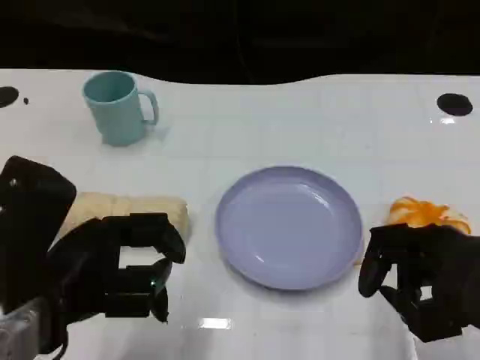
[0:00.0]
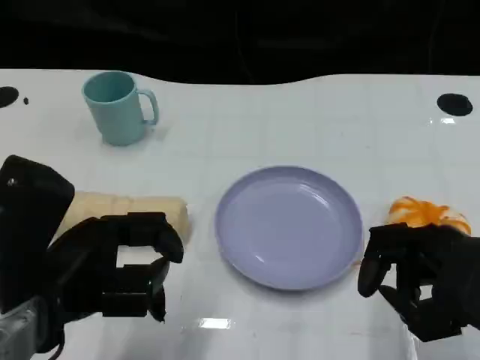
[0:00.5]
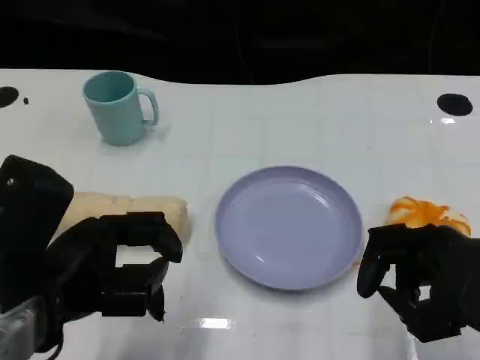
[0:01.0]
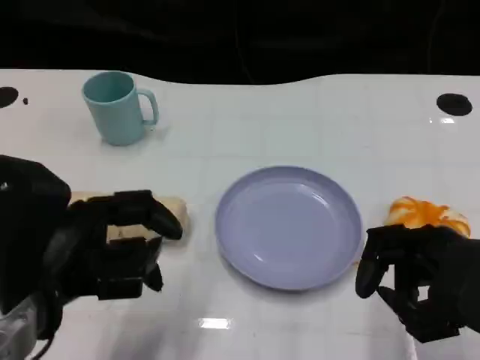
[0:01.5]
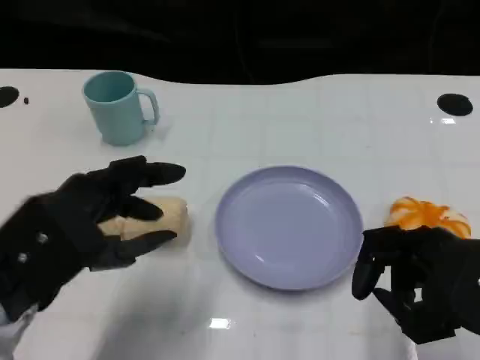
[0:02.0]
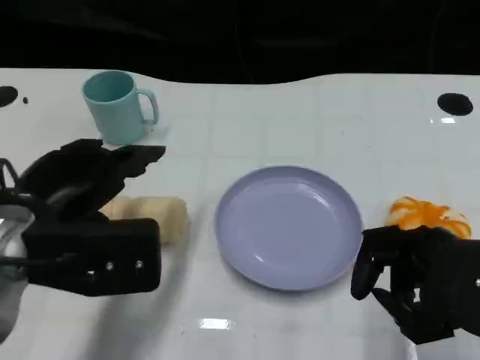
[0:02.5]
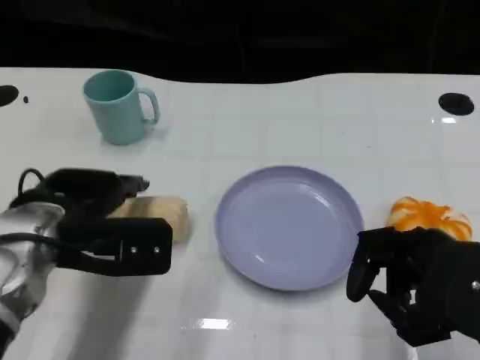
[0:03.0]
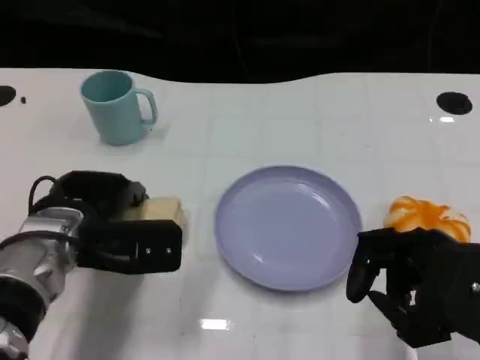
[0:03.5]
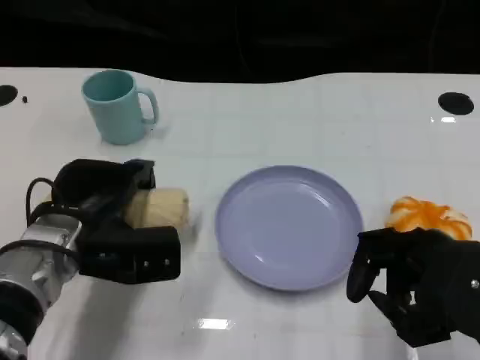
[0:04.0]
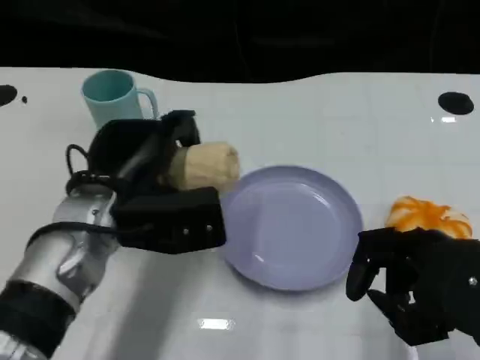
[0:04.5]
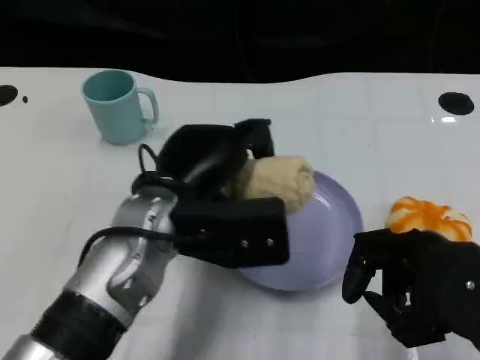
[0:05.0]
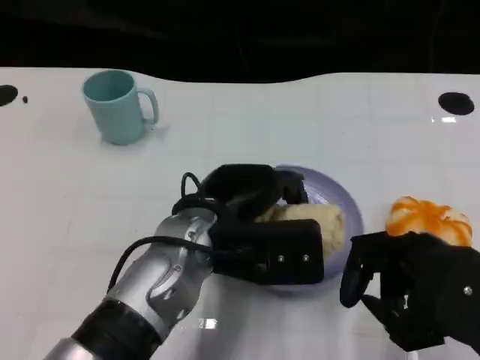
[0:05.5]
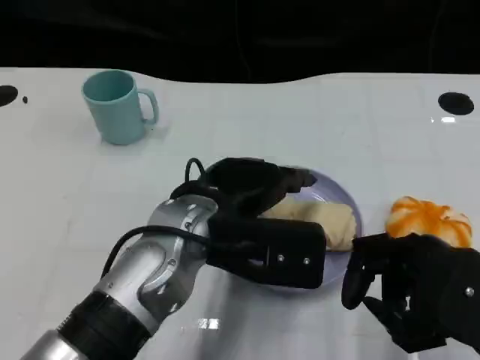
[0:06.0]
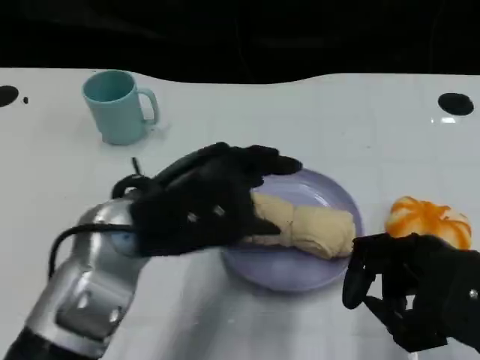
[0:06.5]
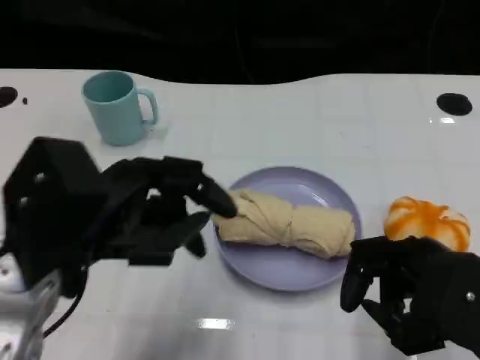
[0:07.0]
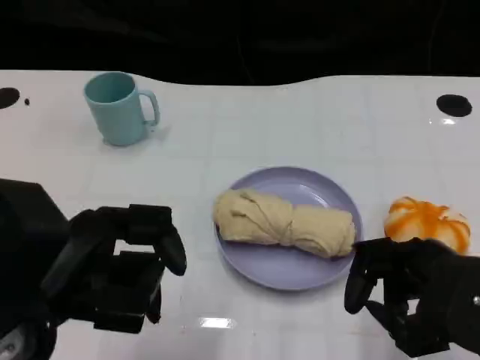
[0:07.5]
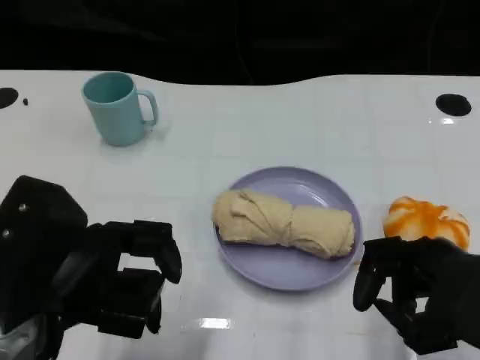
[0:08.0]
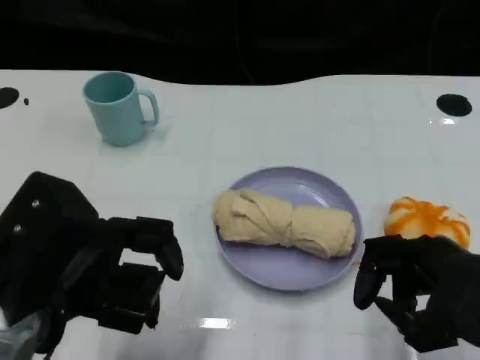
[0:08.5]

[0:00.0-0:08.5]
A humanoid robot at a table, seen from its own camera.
Task of the whole recording: Grasp the towel on the left side of the plate with the left hand and place it into the plate.
0:02.0 to 0:04.0: The left hand heads forward and downward, covering some 10 cm.
0:04.0 to 0:06.5: The left hand heads upward and to the right, covering about 10 cm.
0:06.5 to 0:08.5: The left hand travels to the left and backward by roughly 10 cm.

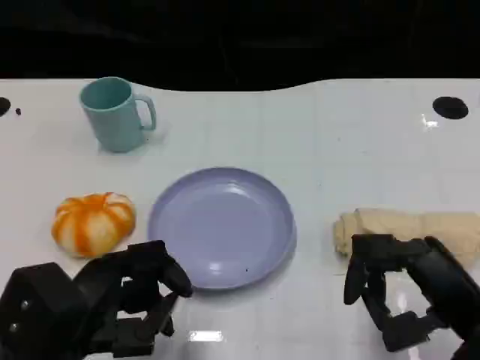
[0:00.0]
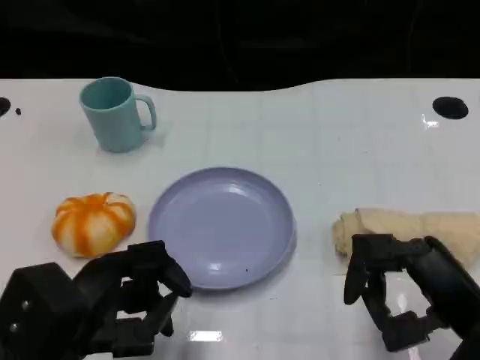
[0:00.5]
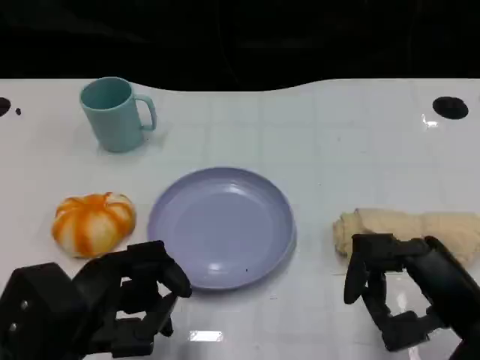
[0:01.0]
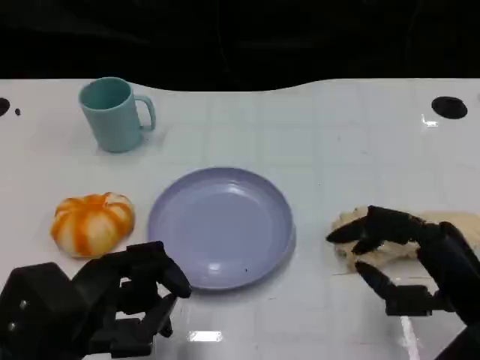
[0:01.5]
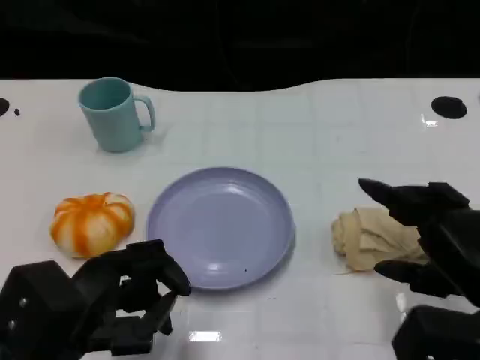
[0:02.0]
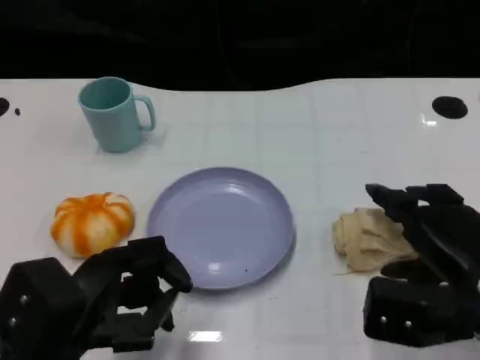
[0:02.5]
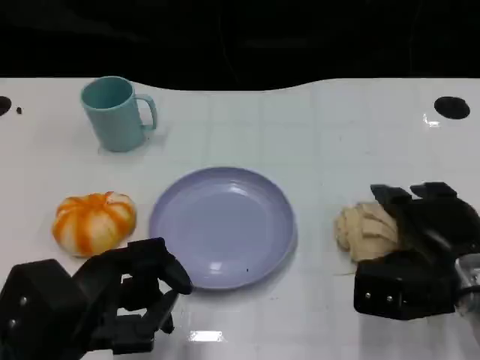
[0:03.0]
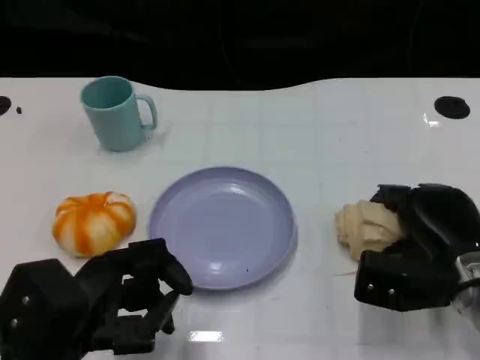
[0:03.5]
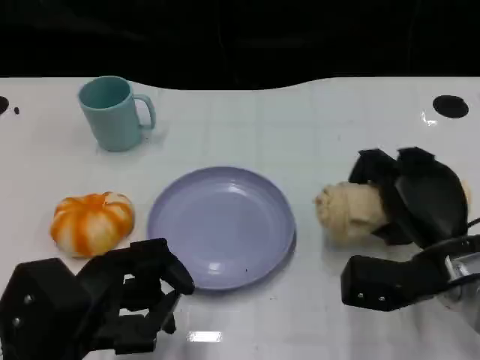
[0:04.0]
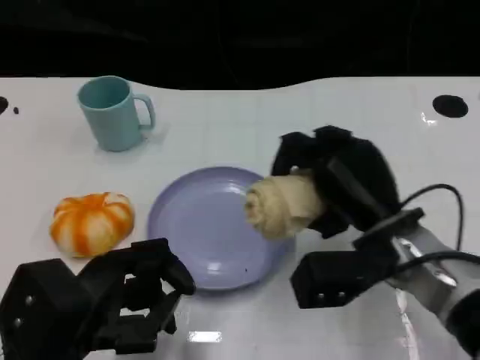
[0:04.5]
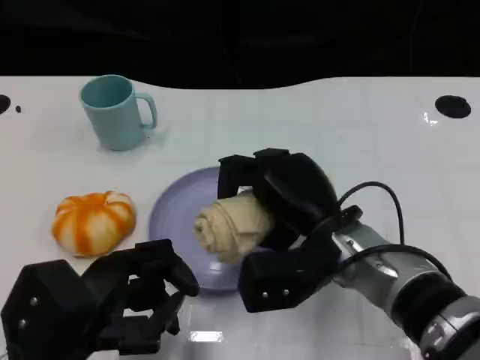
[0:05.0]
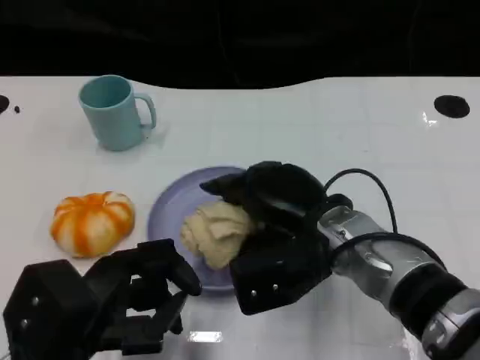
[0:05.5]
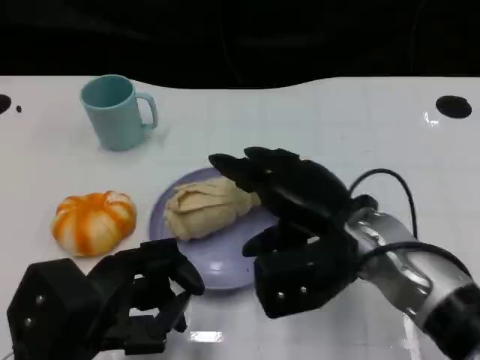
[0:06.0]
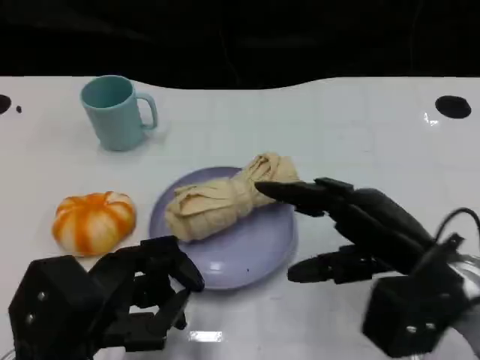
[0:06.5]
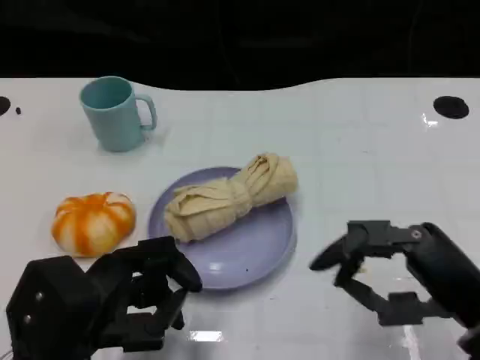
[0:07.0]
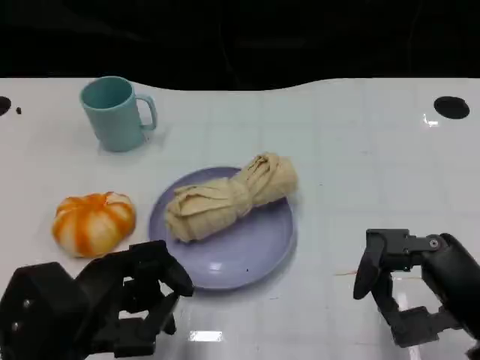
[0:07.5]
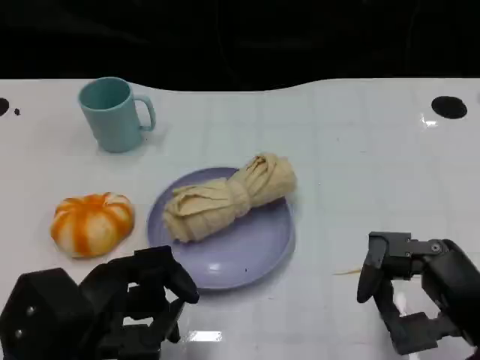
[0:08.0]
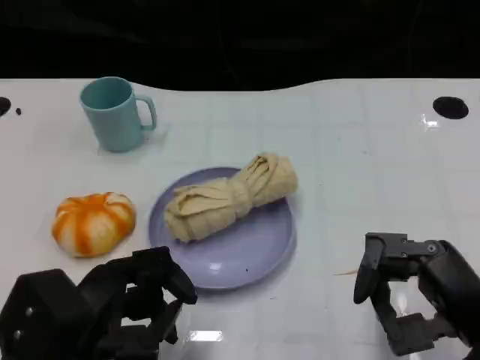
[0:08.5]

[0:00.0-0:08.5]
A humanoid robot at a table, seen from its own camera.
Task of the whole recording: Grasp the towel on the left side of the plate with the left hand and place it into the plate.
0:02.0 to 0:04.0: The right hand is displaced forward and downward by approximately 10 cm.
0:04.0 to 0:06.5: The right hand goes roughly 5 cm upward, and goes to the left and returns, some 10 cm each way.
0:06.5 to 0:08.5: The right hand moves backward, roughly 5 cm.

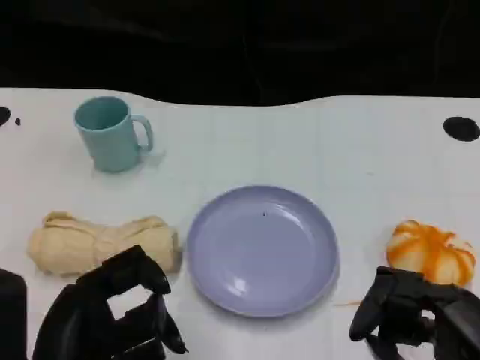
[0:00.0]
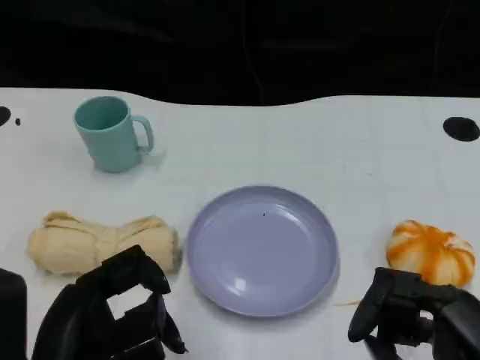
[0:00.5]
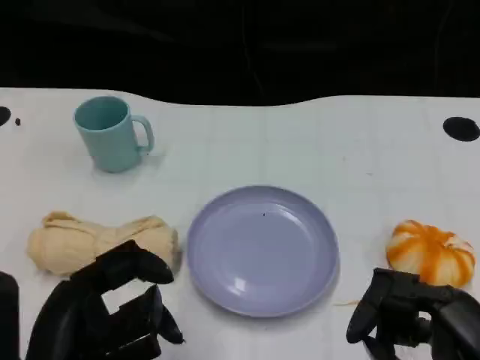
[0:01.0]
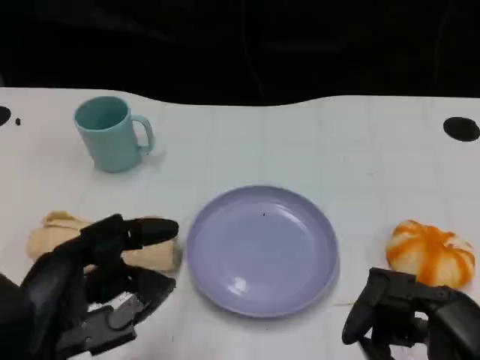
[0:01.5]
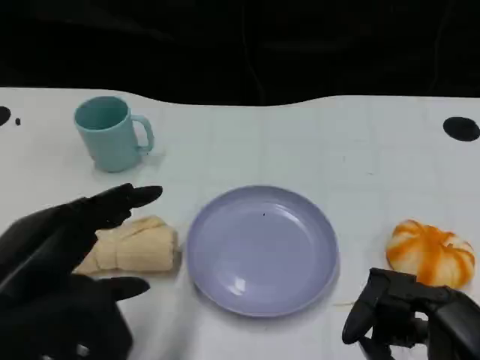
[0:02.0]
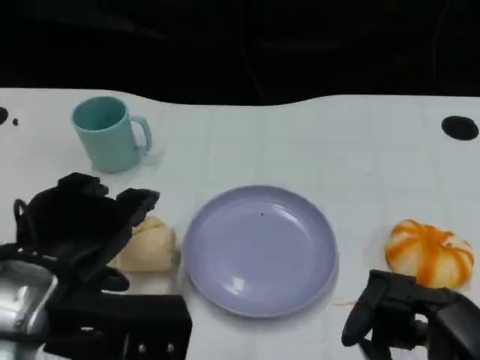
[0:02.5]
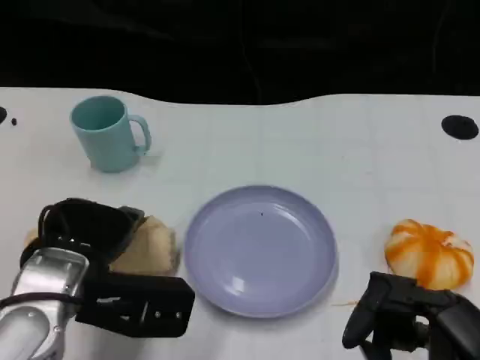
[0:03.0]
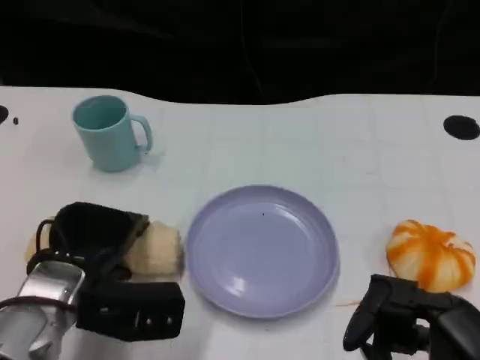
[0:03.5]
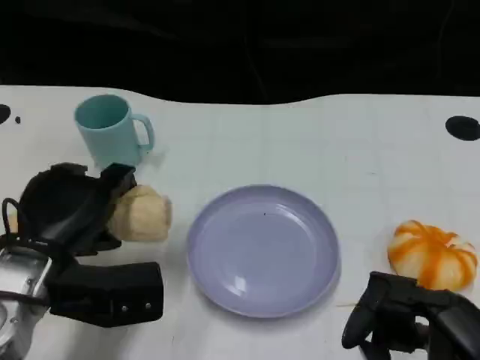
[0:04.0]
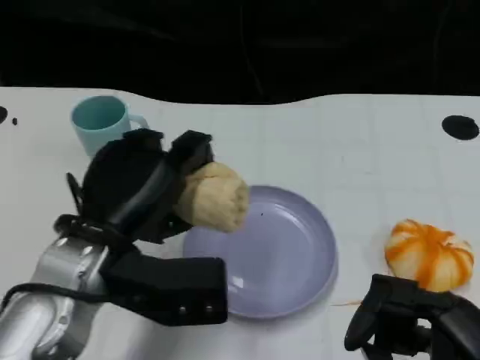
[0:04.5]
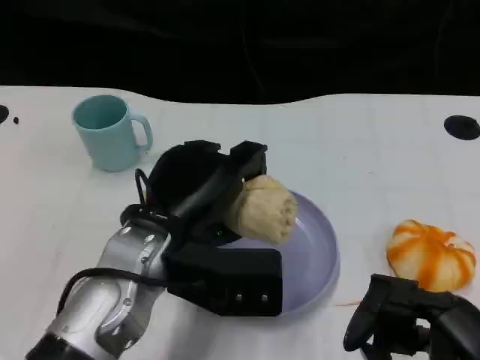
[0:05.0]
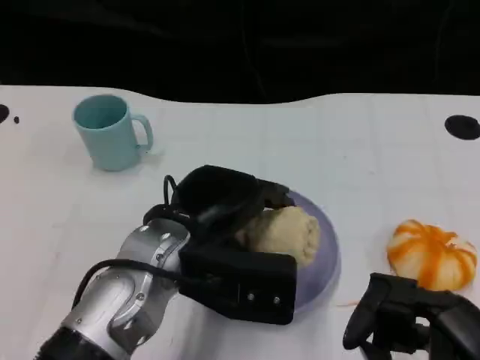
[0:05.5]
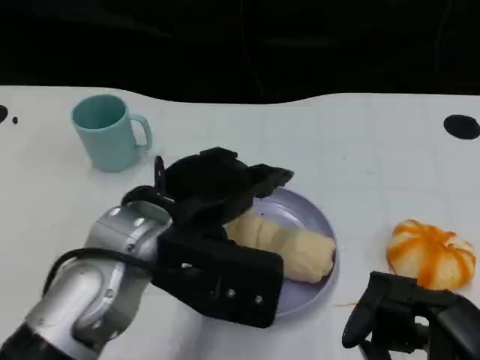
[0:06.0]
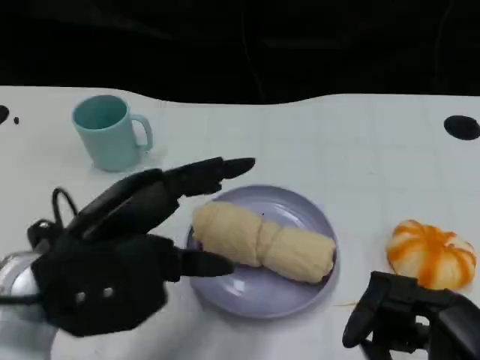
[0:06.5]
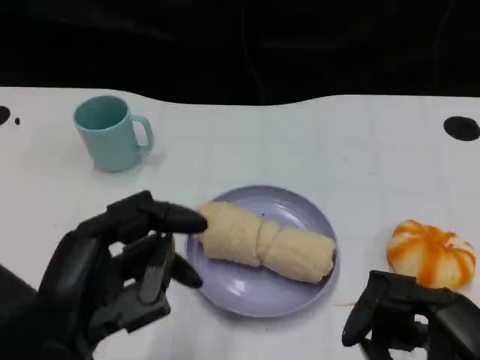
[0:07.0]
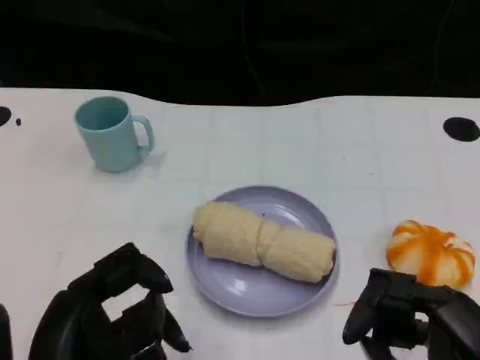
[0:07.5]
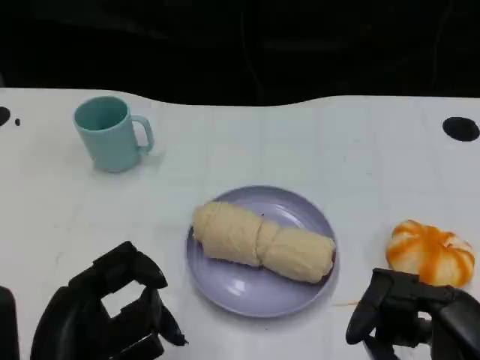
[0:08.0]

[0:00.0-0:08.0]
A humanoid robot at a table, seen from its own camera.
Task of the whole recording: Grasp the towel on the left side of the plate with the left hand and place it into the plate.
0:00.0 to 0:02.0: The left hand moves some 5 cm.
0:02.0 to 0:04.0: The left hand is displaced forward and downward by roughly 10 cm.
0:04.0 to 0:06.0: The left hand is displaced to the right and upward by about 10 cm.
0:06.0 to 0:08.0: The left hand moves backward and to the left, approximately 15 cm.
